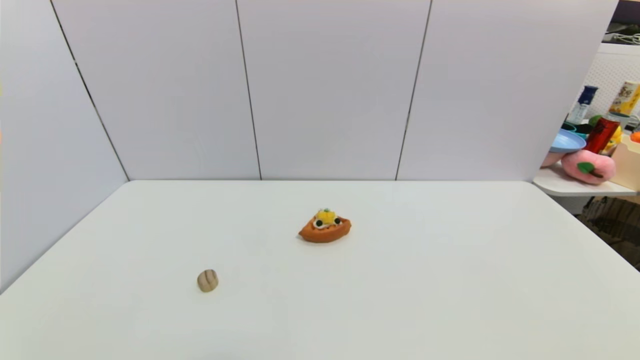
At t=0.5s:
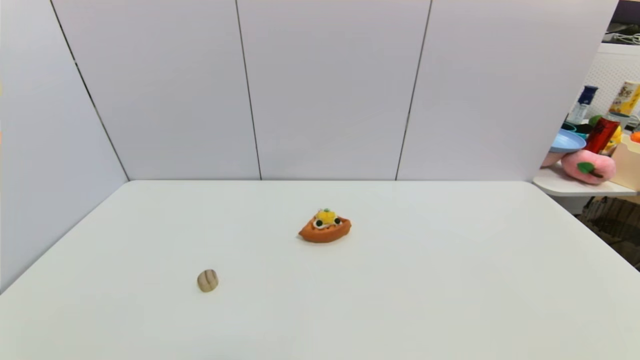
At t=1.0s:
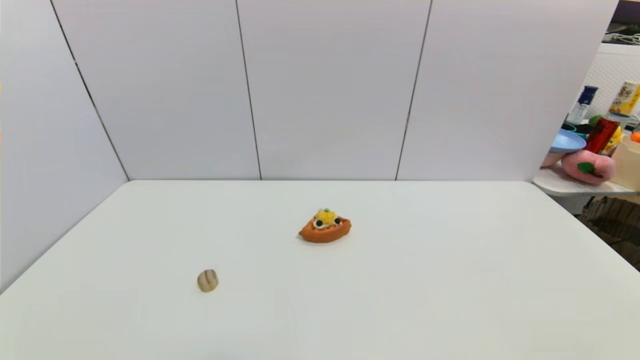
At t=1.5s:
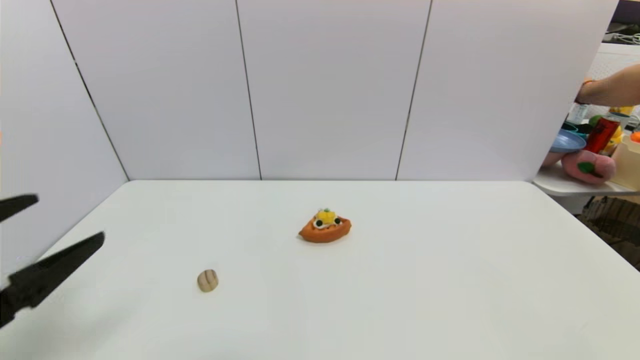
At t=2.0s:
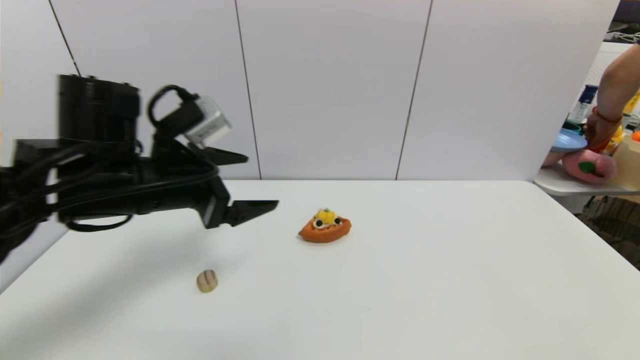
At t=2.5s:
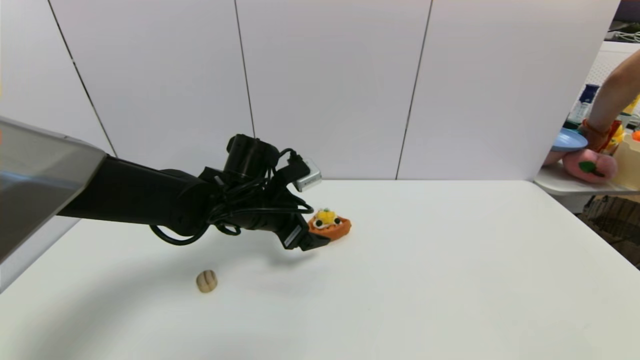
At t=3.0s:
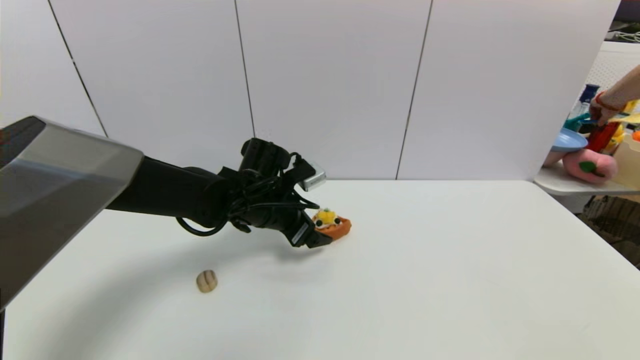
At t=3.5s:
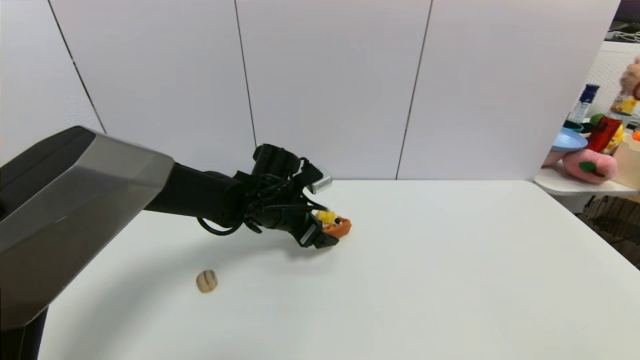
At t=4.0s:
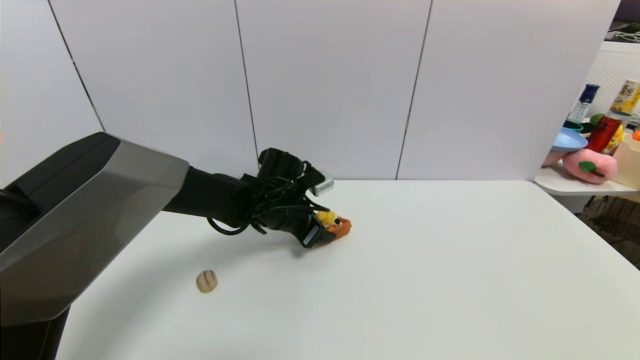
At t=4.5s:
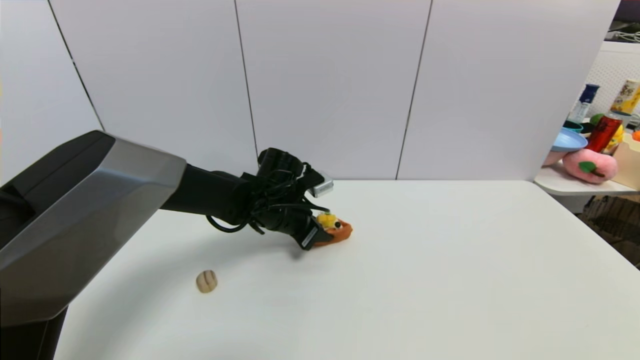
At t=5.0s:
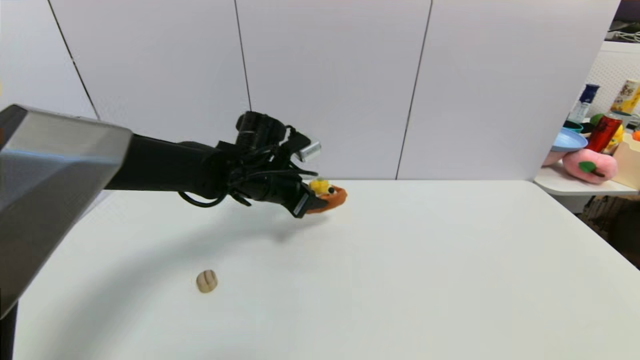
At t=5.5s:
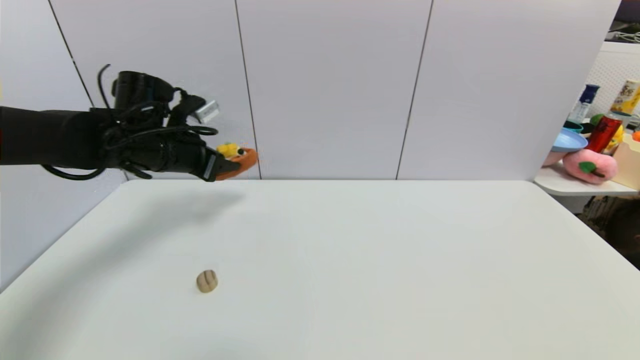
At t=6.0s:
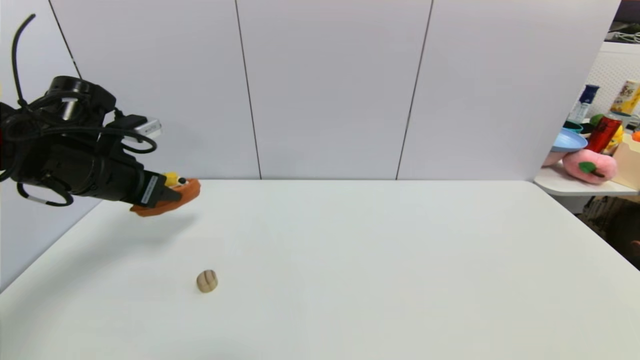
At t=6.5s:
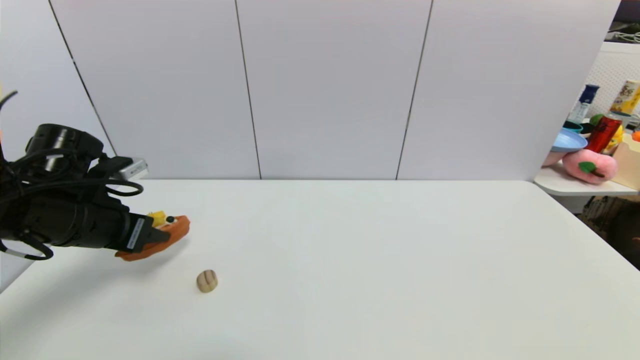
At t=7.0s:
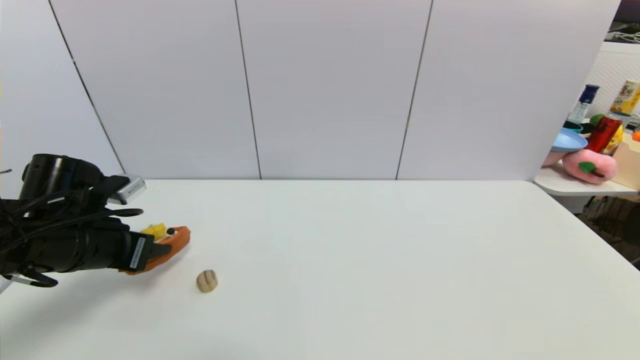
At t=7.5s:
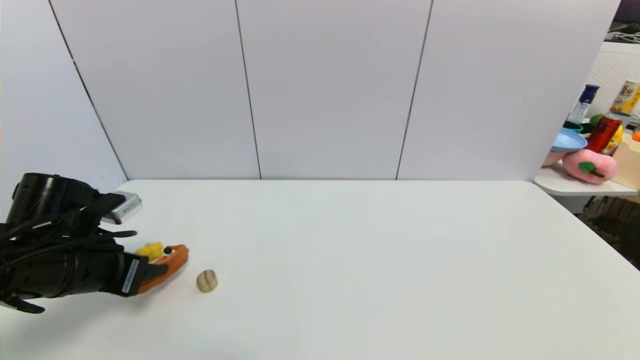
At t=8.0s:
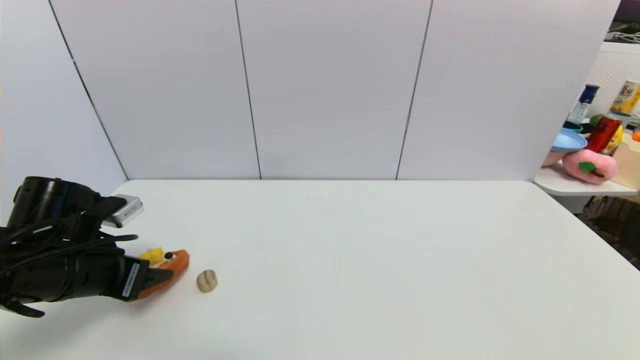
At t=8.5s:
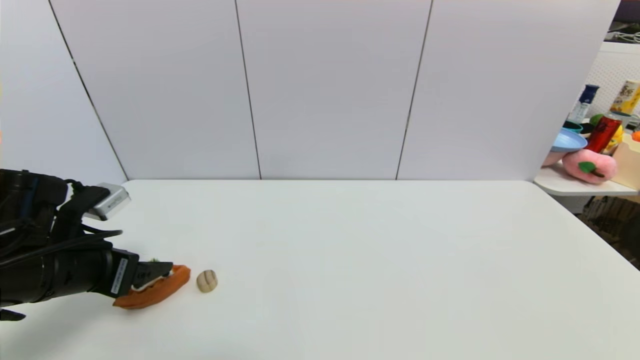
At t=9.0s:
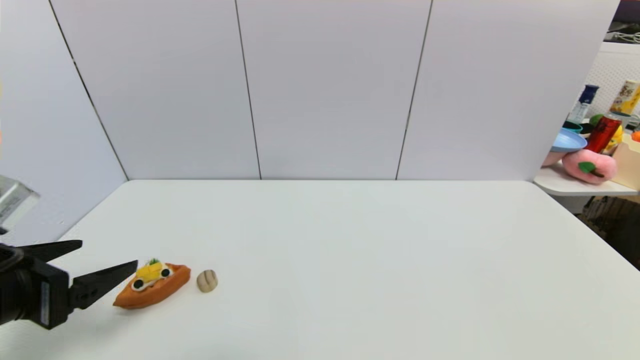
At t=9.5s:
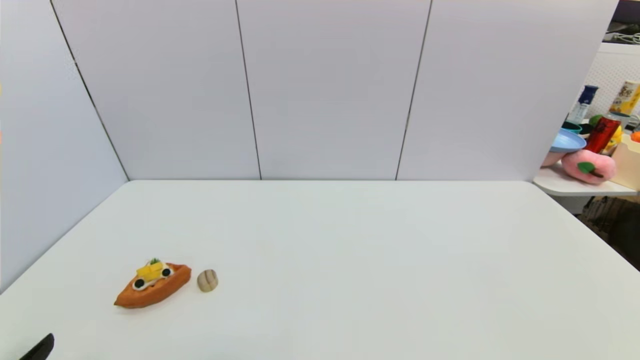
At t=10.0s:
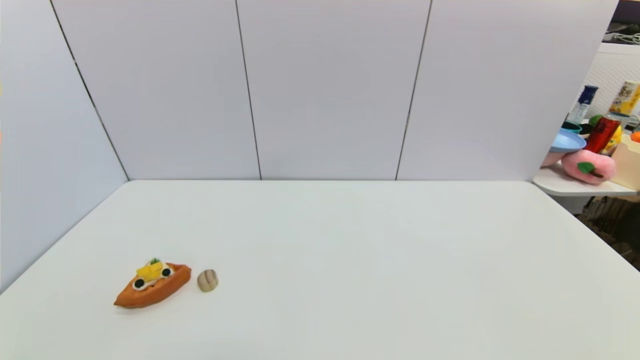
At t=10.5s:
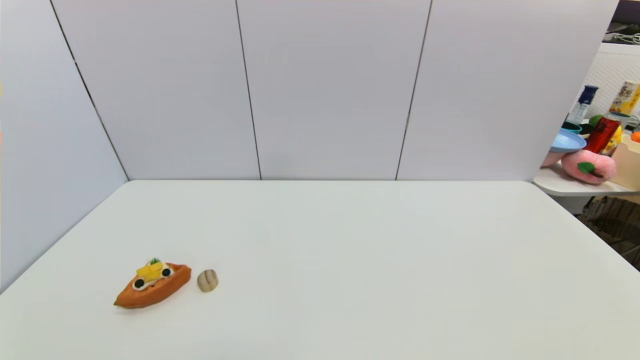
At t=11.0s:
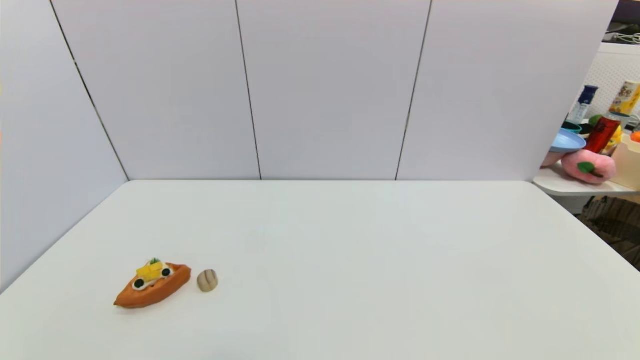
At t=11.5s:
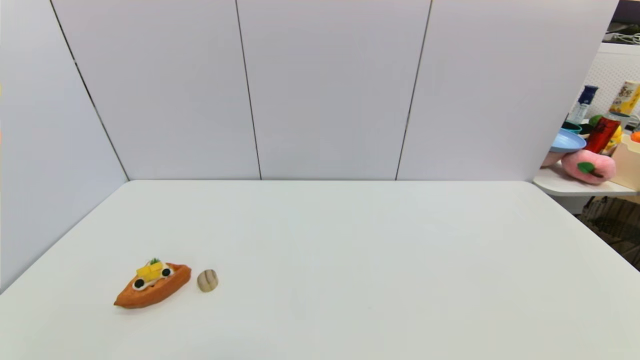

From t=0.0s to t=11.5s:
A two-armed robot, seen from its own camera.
Step, from t=1.5s to t=4.5s: Grasp the pizza with left gripper.
Step, from t=5.0s to t=8.0s: Place the pizza on the table with left gripper.
From t=0.0s to t=2.0s: The left gripper travels forward, upward and to the right by roughly 35 cm.
From t=2.0s to t=4.0s: The left gripper heads downward, forward and to the right, covering approximately 20 cm, and closes its fingers.
From t=4.0s to t=6.0s: The left gripper travels to the left and upward by approximately 25 cm.
From t=6.0s to t=7.5s: The left gripper goes roughly 10 cm downward and backward.
From t=7.5s to t=9.5s: The left gripper goes approximately 20 cm backward, and opens its fingers.

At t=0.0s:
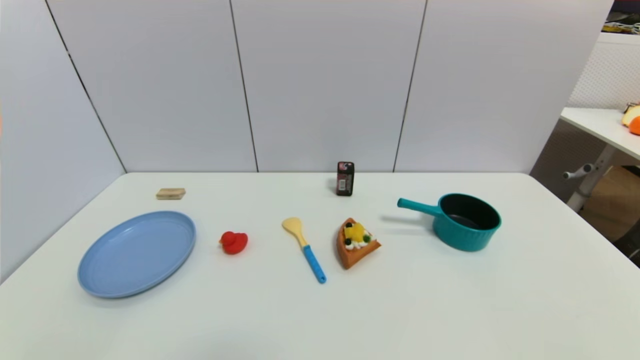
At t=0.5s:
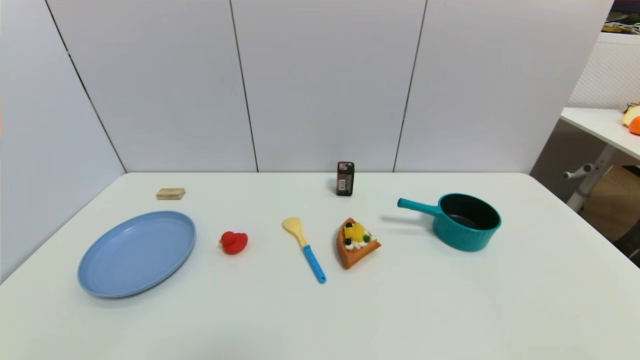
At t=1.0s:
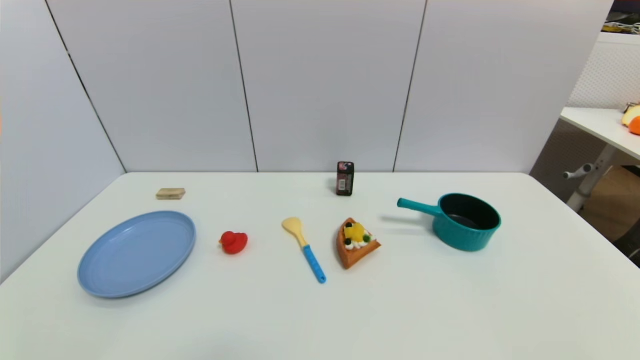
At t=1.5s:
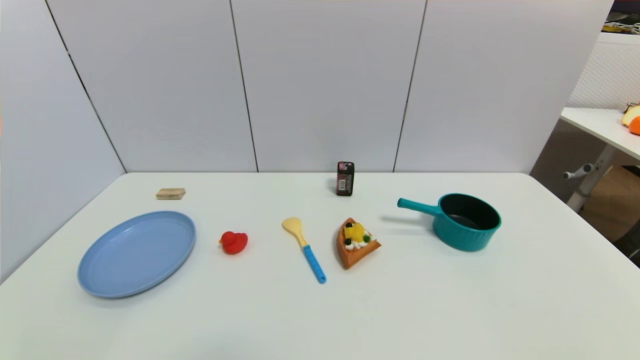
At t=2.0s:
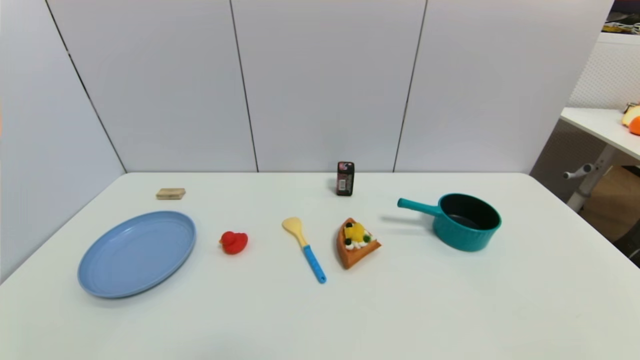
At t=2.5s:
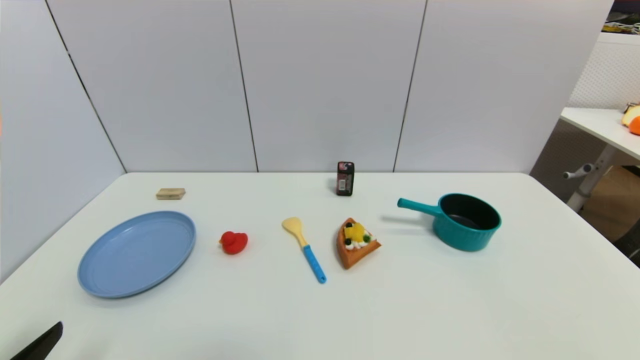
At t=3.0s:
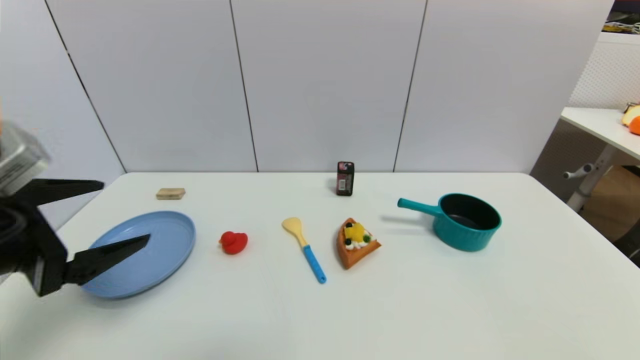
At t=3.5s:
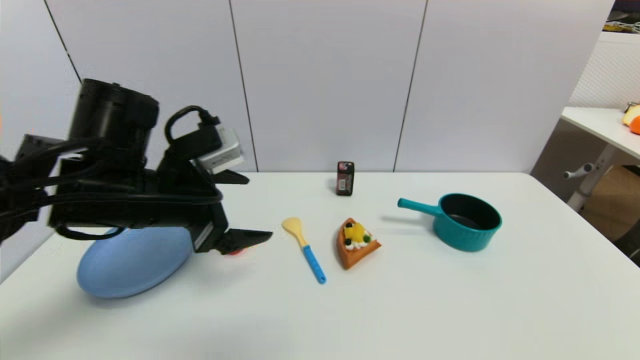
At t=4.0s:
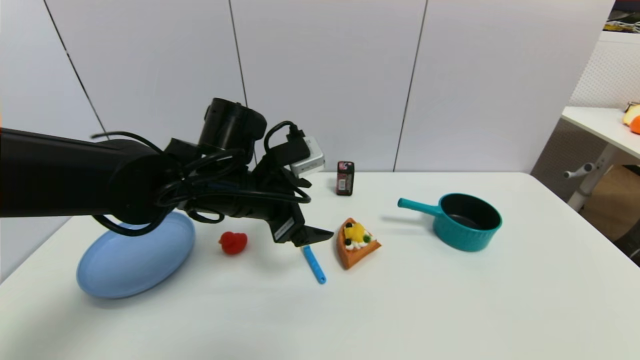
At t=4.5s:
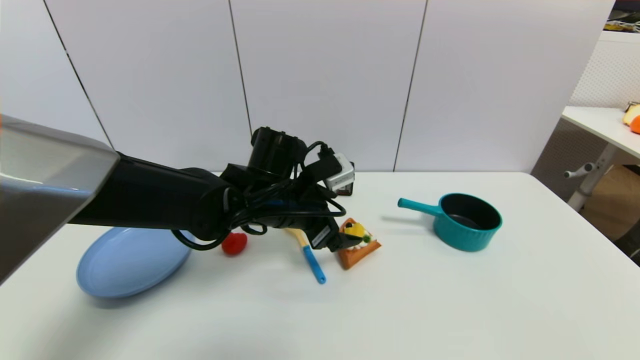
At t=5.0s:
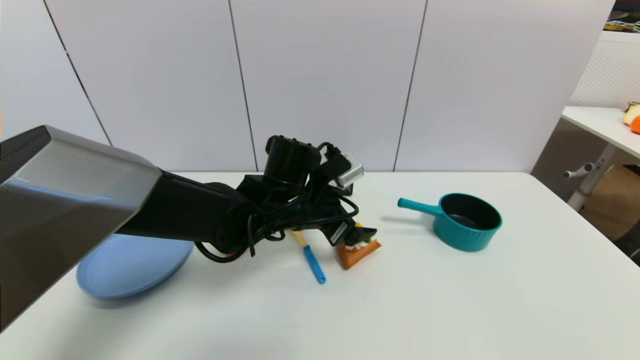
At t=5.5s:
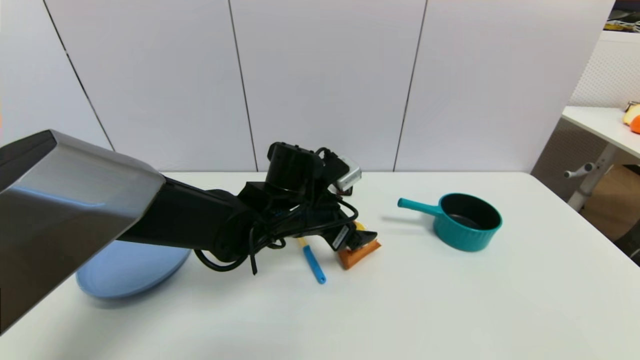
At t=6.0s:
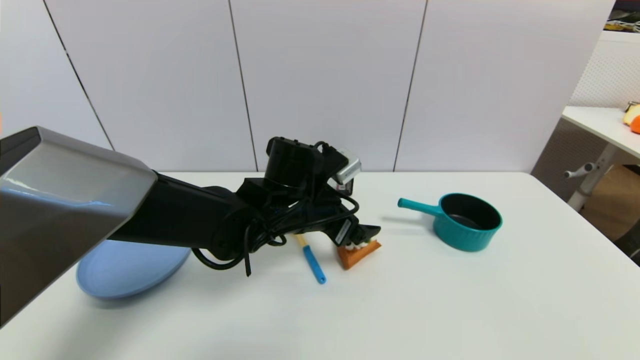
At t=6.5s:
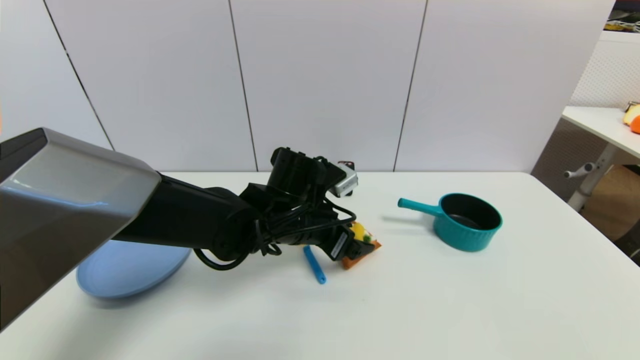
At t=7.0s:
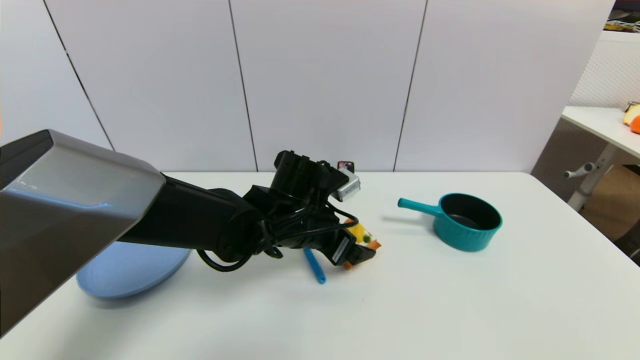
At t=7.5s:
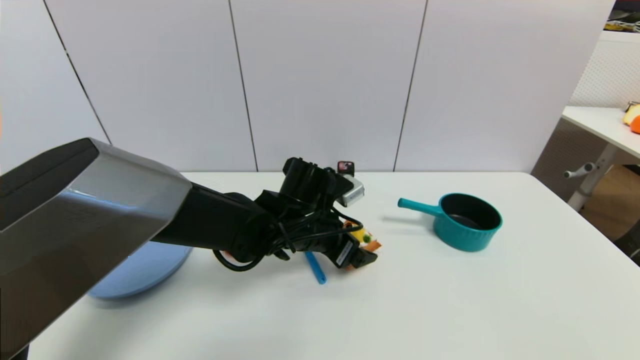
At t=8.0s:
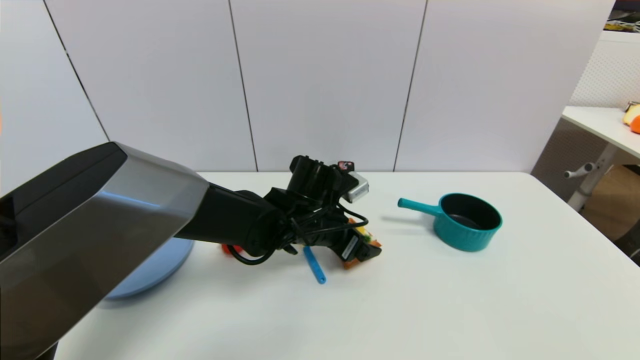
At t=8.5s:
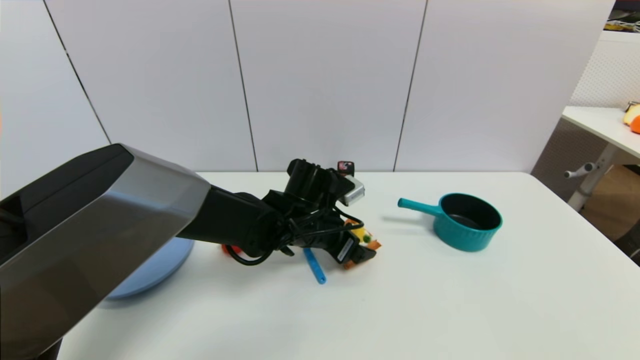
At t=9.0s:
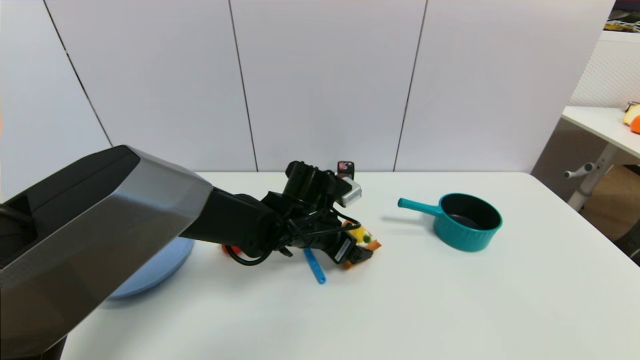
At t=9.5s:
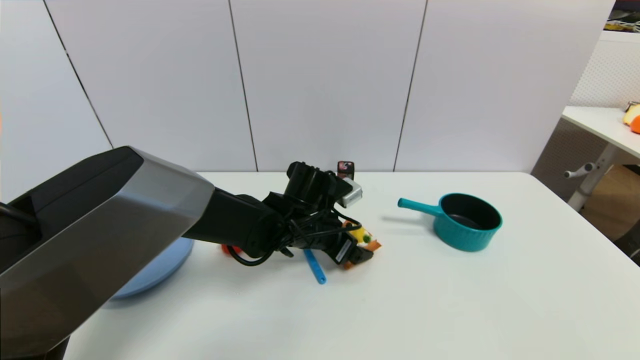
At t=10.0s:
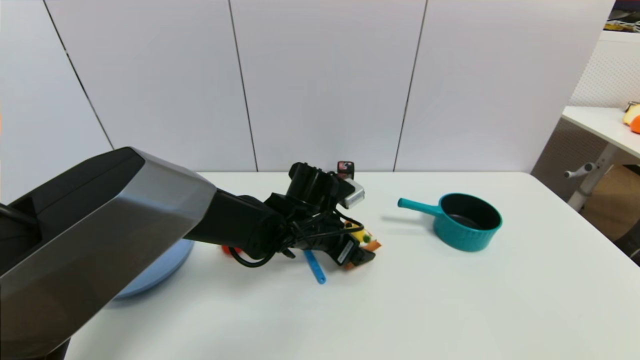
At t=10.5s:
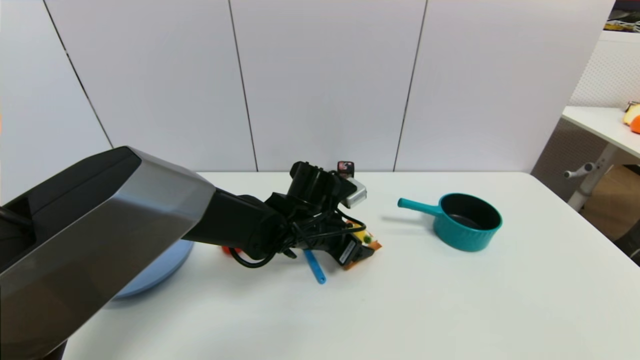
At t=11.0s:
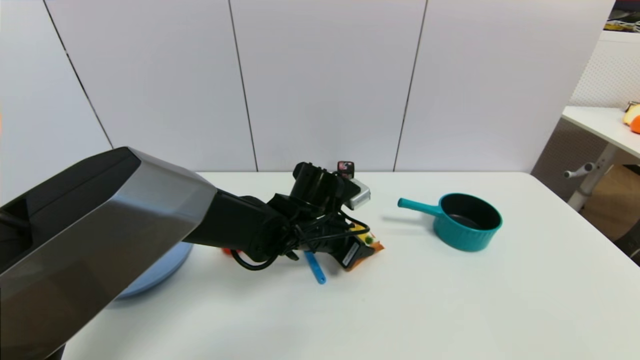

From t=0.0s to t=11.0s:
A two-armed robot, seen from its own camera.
From t=2.0s to t=3.5s: The left gripper heads forward, upward and to the right, covering roughly 35 cm.
From t=3.5s to t=5.5s: The left gripper travels to the right, downward and forward by about 15 cm.
From t=5.5s to t=9.0s: There are only small adjustments of the grippers.
From t=9.0s to t=11.0s: The left gripper closes its fingers.
